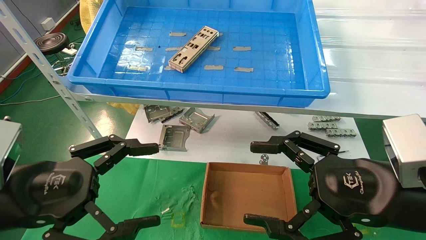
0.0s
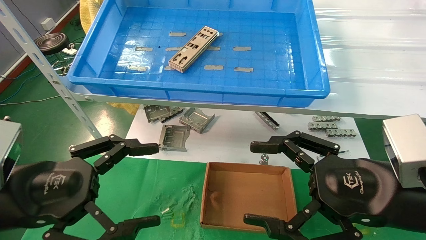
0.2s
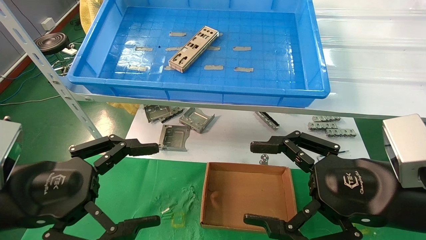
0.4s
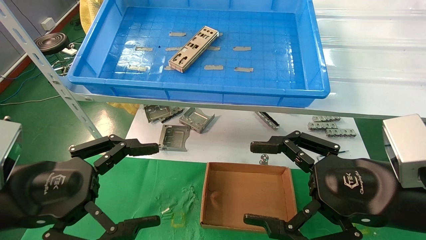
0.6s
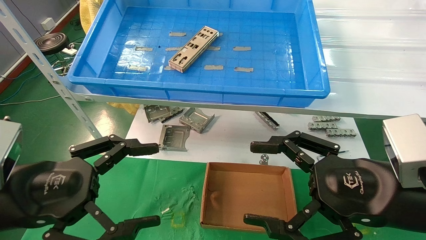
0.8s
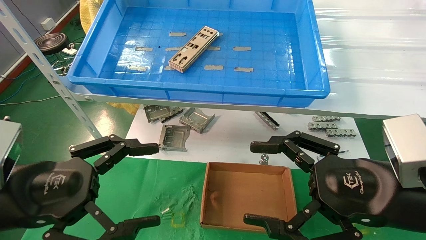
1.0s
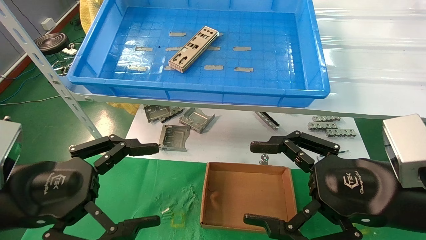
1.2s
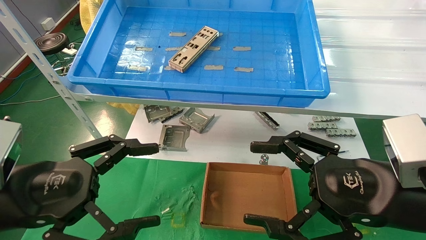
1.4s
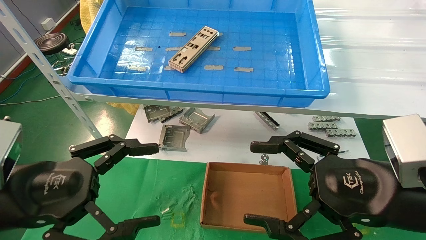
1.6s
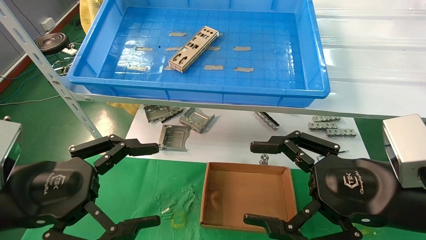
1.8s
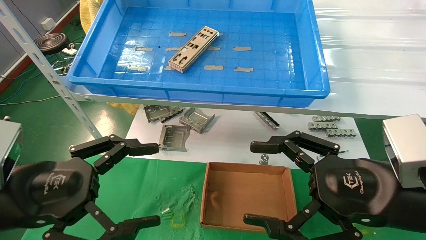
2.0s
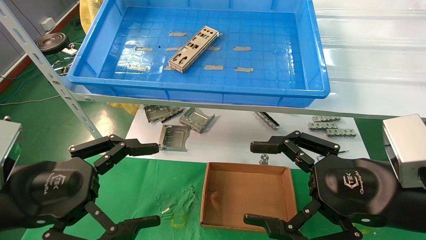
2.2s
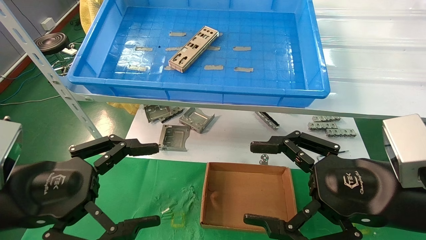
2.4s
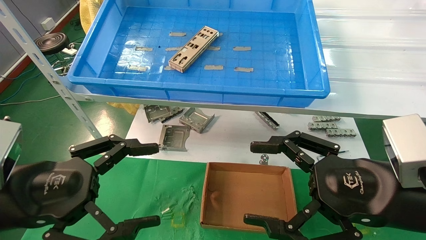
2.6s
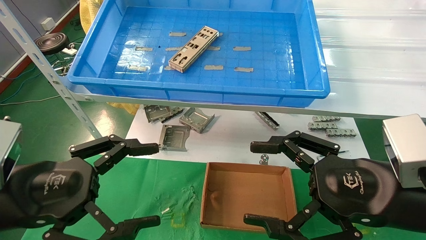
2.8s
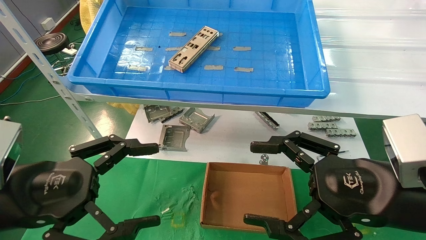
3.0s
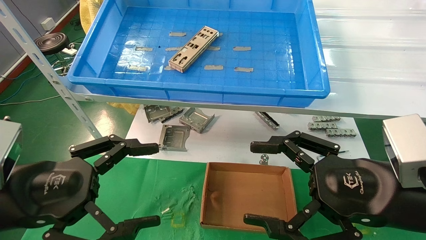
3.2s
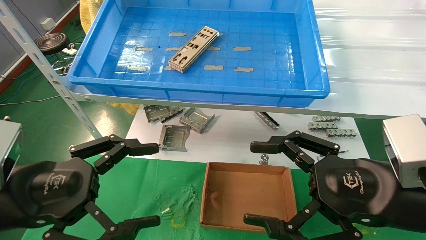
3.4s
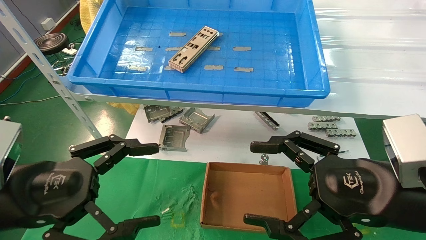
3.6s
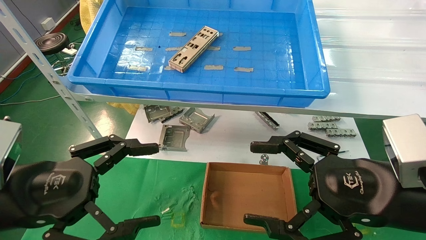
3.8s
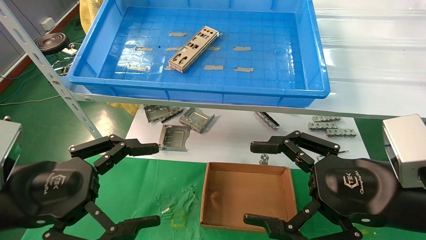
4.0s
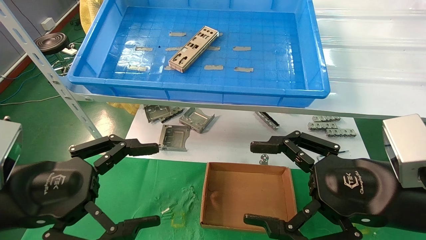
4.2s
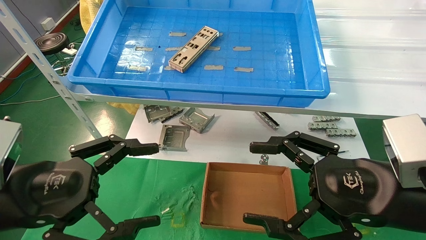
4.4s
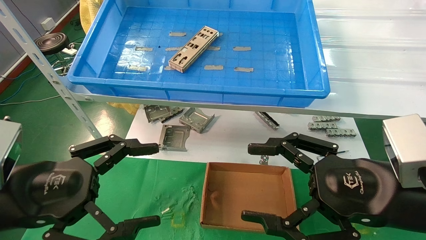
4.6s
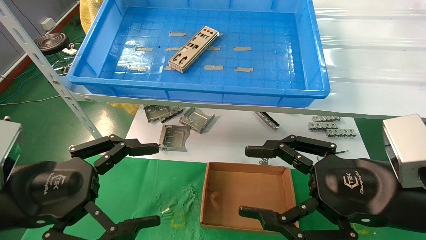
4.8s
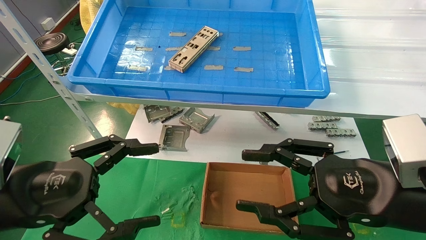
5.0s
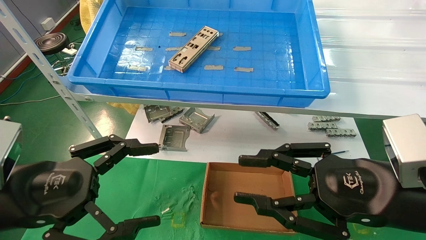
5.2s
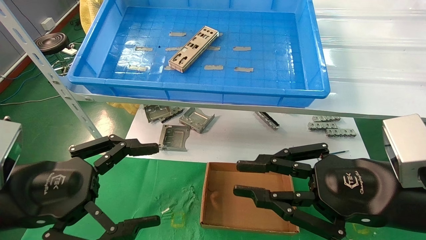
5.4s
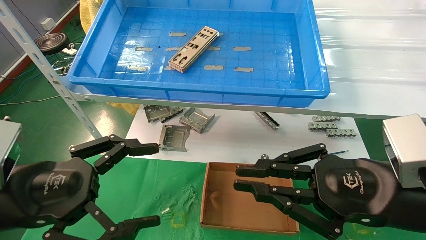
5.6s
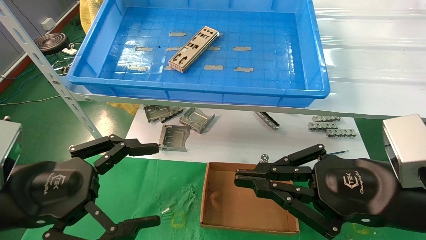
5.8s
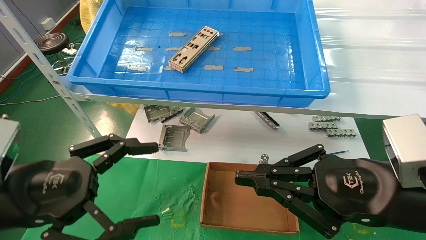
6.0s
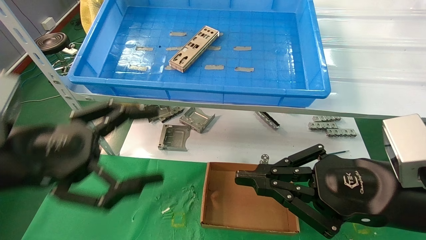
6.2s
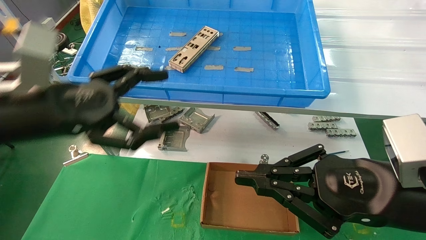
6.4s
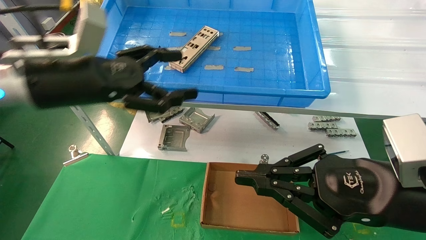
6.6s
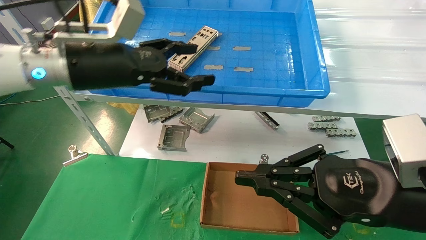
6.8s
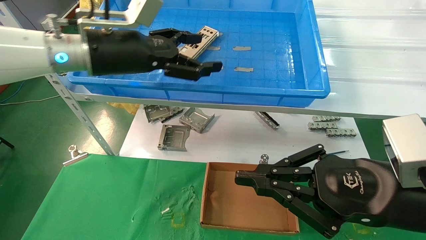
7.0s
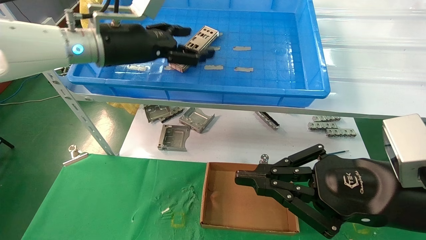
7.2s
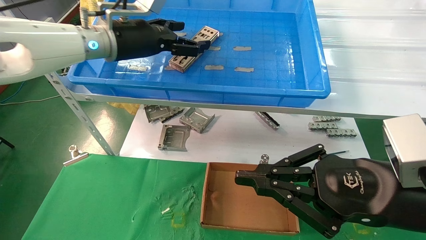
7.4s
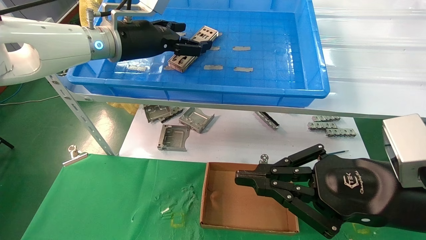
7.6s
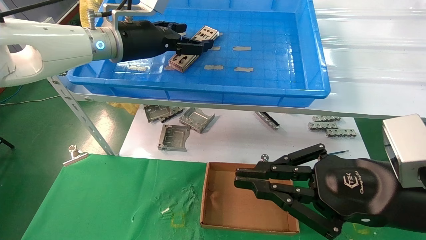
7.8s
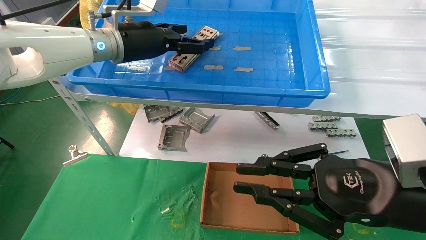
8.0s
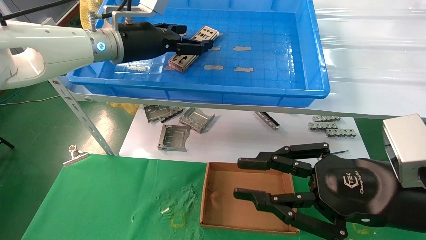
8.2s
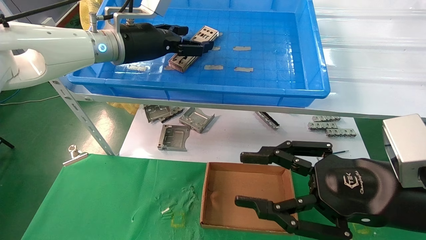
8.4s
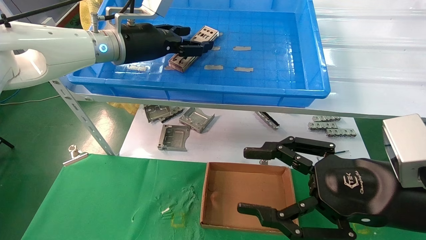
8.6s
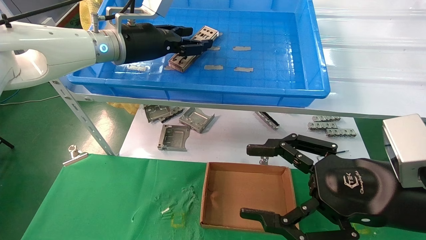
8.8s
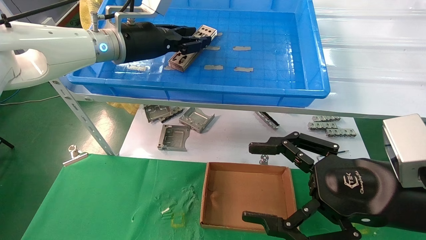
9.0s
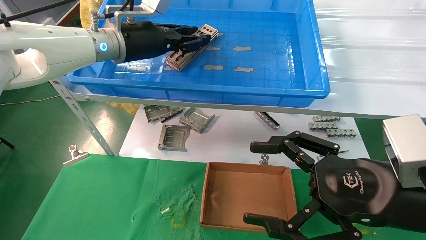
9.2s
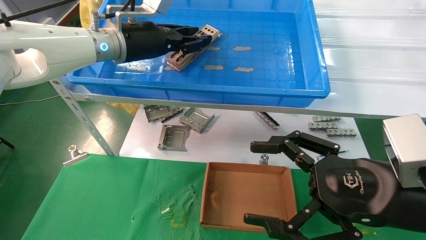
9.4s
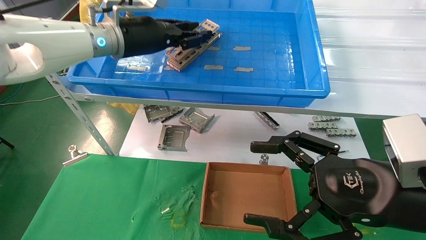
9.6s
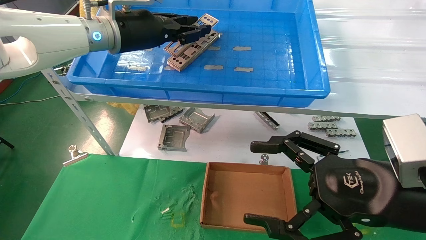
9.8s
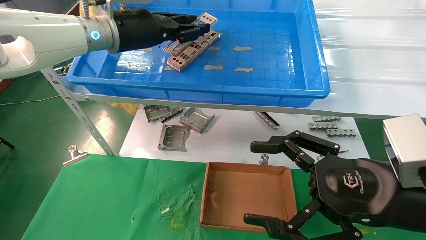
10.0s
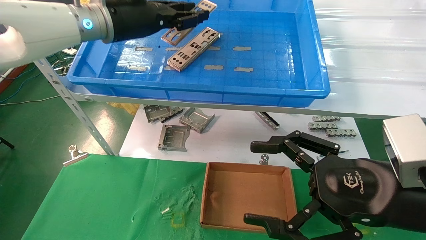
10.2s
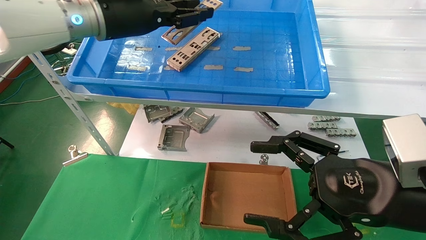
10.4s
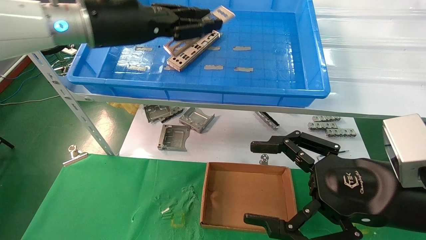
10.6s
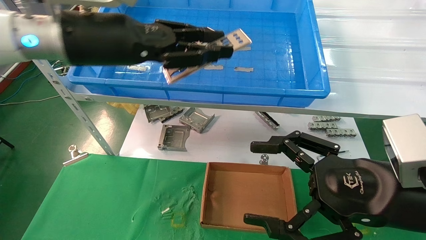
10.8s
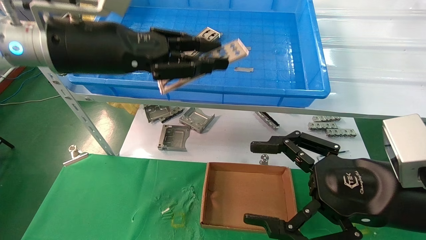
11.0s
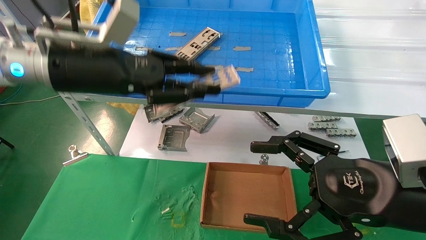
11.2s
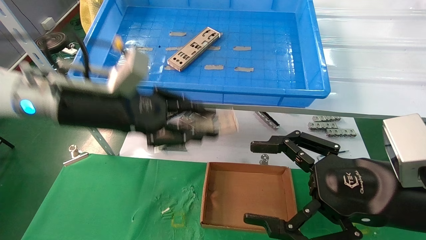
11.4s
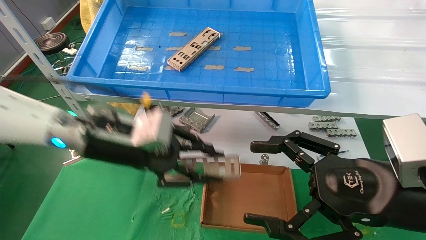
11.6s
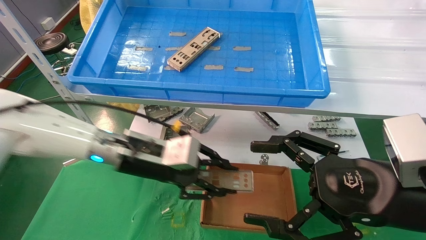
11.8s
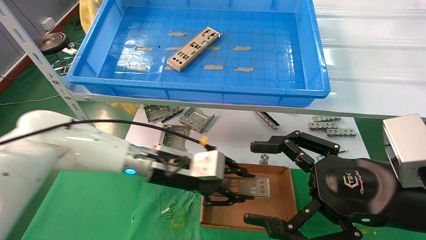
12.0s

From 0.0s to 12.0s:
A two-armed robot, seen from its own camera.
Task of the whole recording: pick up the parts on the tray and put them in the cardboard box.
Step, from 6.4s to 9.4s: Pick up the IO bracket from the container box.
From 0.0s to 4.4s: Both grippers stay about where they are.
From 4.4s to 6.0s: The right gripper closes.
From 6.0s to 7.6s: The left gripper goes roughly 30 cm forward, upward and to the right.
From 7.6s to 9.0s: The left gripper closes; the right gripper opens its fingers.
From 9.0s to 10.4s: The left gripper shifts by some 5 cm, and closes.
From 10.4s to 12.0s: The left gripper goes approximately 25 cm downward.

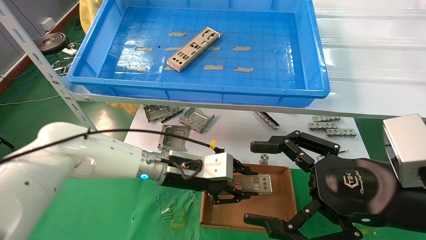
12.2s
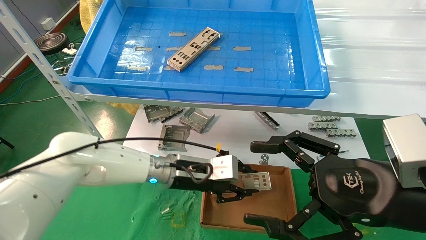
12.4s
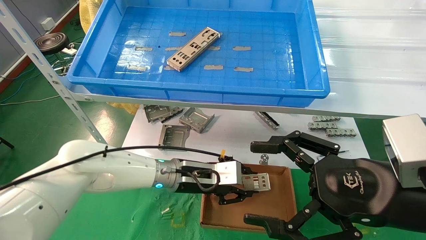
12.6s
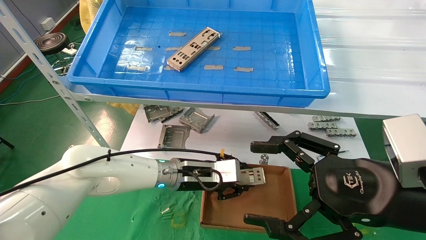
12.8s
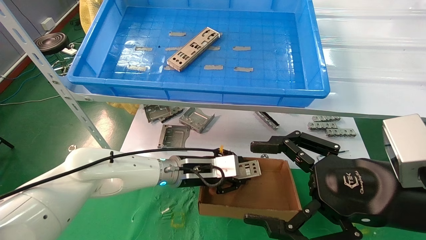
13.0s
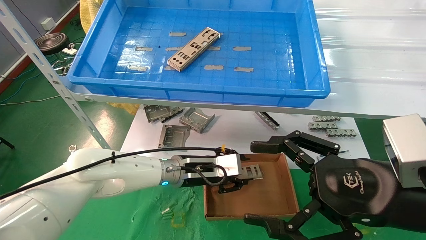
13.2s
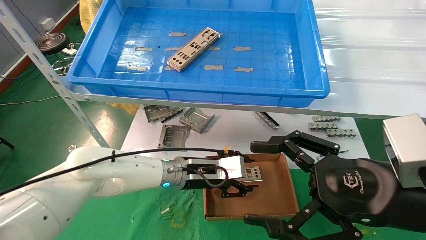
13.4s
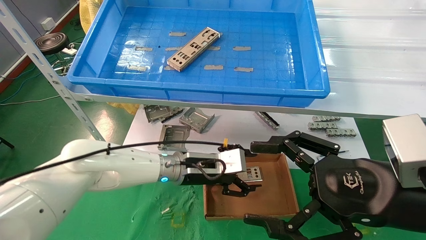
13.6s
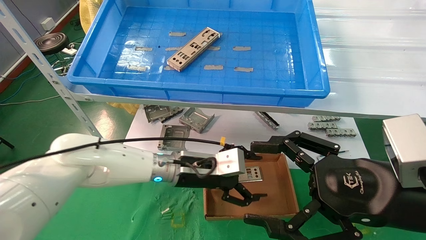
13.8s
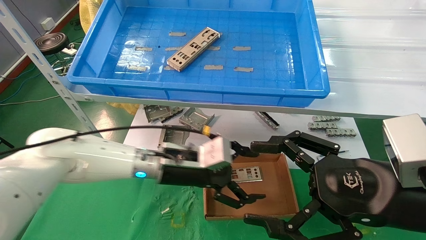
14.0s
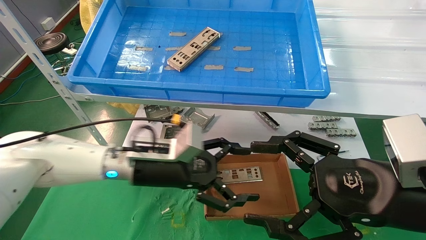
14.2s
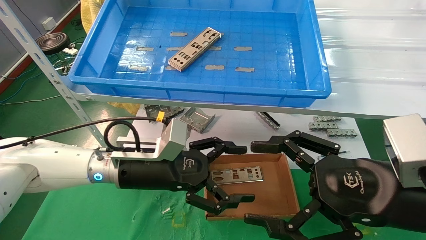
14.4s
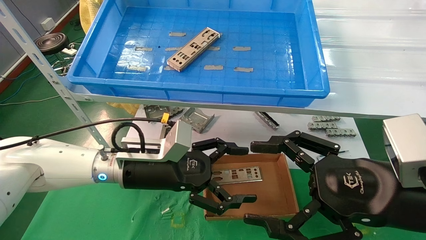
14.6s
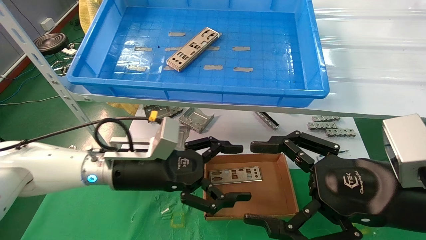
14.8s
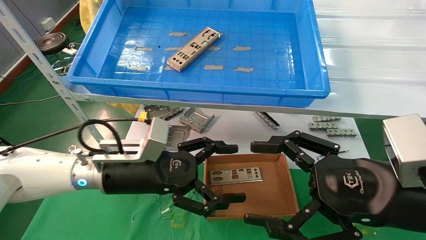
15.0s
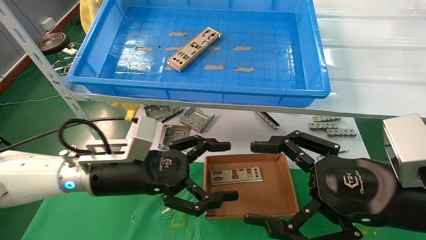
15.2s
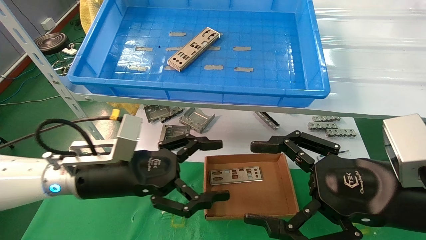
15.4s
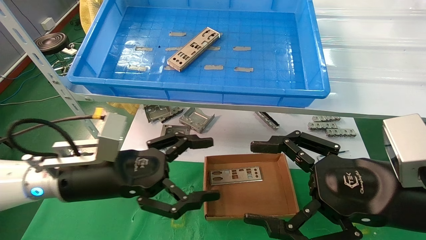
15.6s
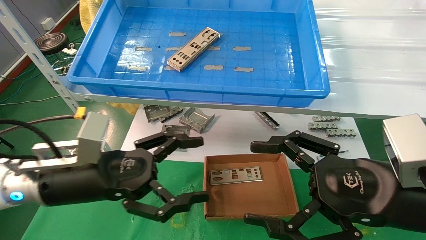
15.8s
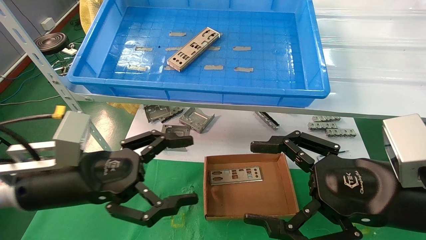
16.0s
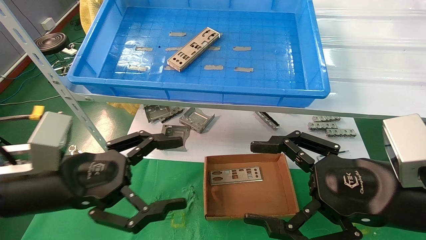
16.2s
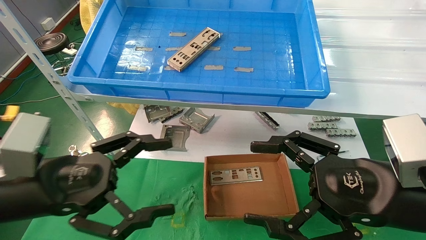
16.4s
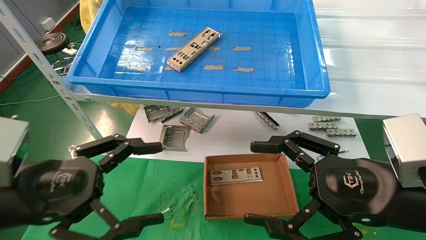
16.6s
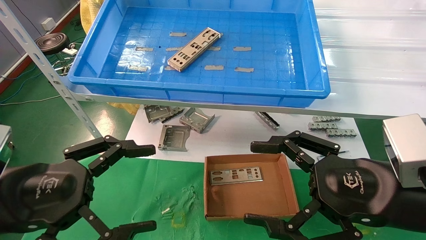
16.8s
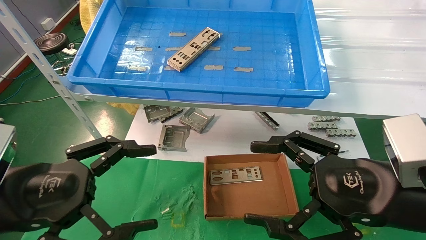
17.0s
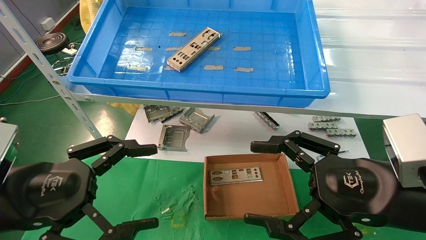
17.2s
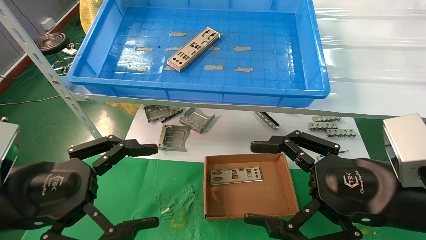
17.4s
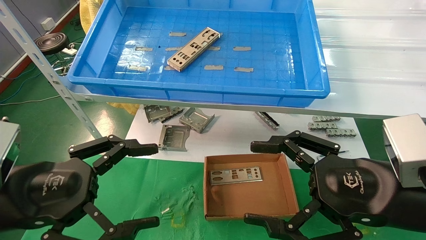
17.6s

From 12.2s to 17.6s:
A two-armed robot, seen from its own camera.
Task of the whole recording: pick up the parts on the tray and put them in the cardboard box.
From 12.2s to 13.6s: The left gripper opens its fingers.
From 13.6s to 15.0s: The left gripper heads to the left and backward, covering roughly 15 cm, and opens.
From 15.0s to 16.2s: The left gripper goes roughly 15 cm to the left and backward.
From 16.2s to 17.6s: The left gripper ends up roughly 5 cm from where it was.
